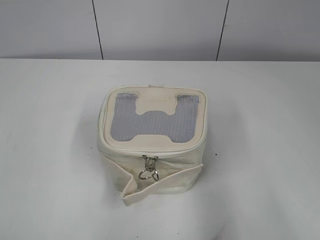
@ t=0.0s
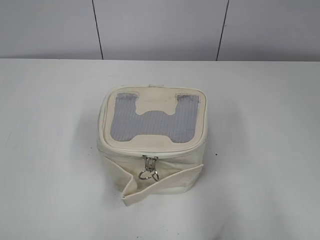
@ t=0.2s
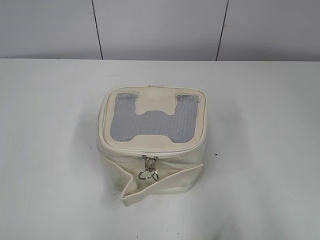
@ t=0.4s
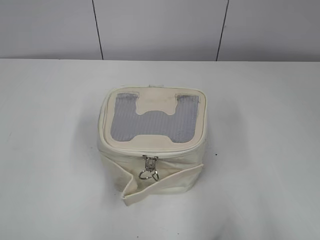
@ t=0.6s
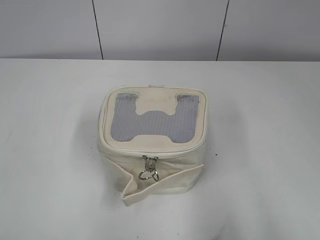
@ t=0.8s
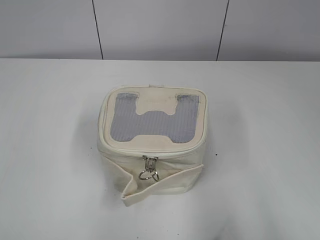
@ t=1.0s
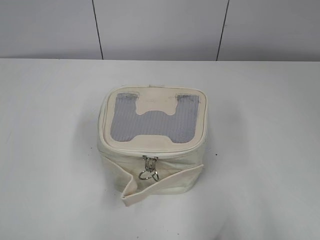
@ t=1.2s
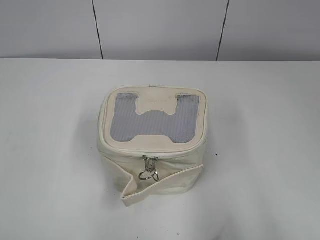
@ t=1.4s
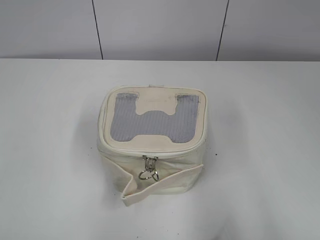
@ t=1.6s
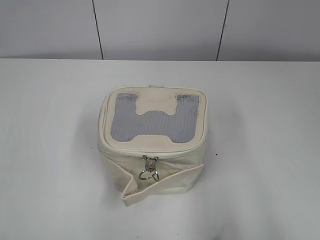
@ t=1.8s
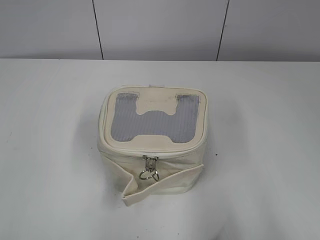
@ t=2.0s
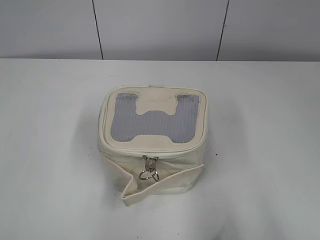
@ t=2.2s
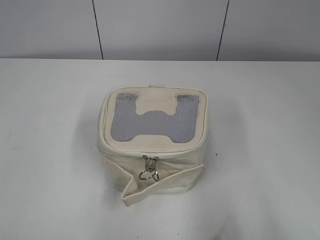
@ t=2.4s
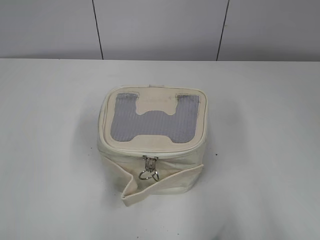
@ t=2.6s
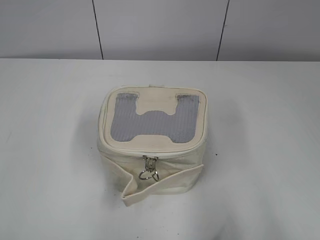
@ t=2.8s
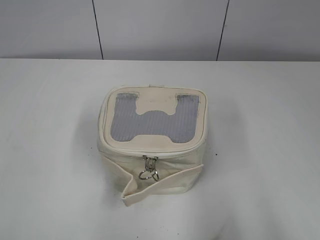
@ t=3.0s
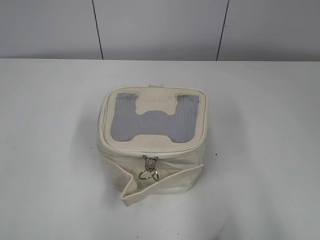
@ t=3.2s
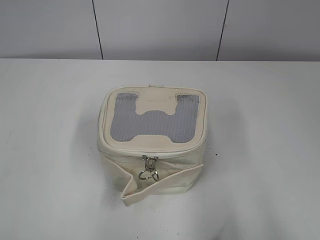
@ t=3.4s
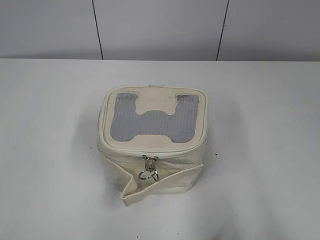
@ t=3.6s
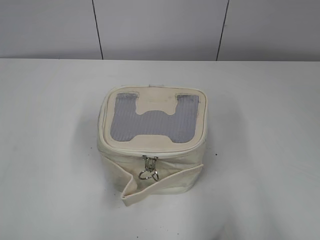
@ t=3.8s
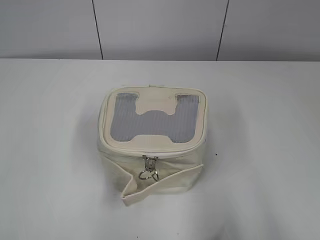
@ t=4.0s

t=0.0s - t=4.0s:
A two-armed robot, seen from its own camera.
t=1.4s - t=4.0s: Both grippers stay about where they are.

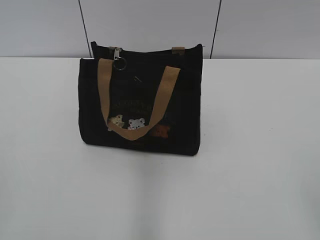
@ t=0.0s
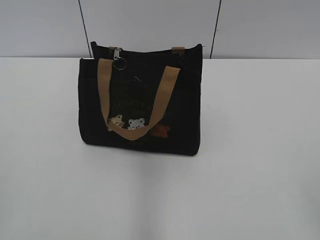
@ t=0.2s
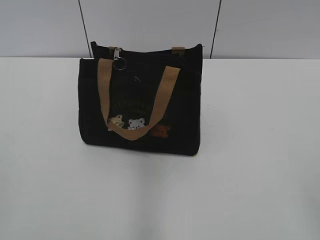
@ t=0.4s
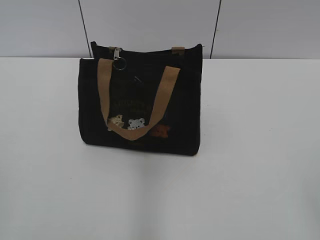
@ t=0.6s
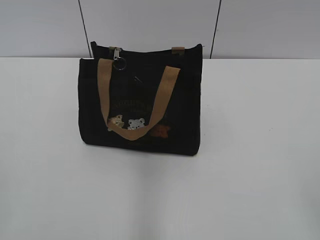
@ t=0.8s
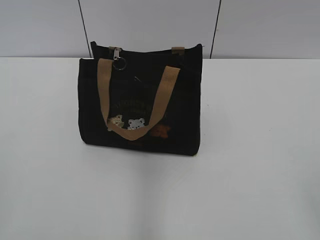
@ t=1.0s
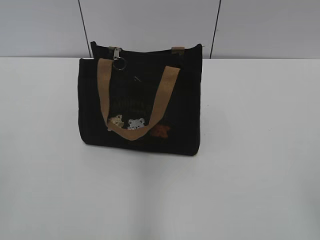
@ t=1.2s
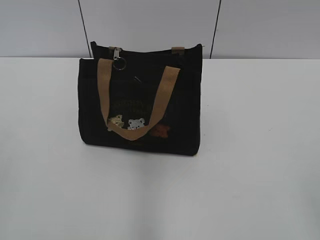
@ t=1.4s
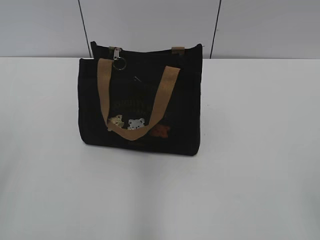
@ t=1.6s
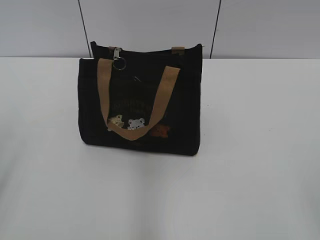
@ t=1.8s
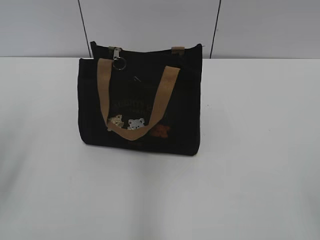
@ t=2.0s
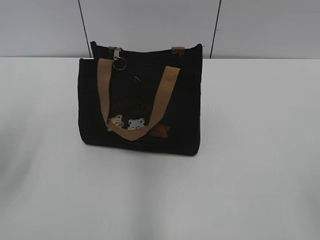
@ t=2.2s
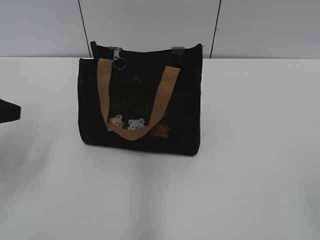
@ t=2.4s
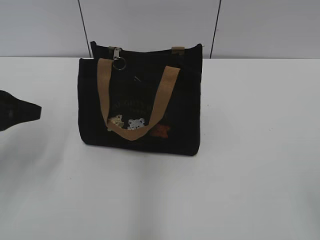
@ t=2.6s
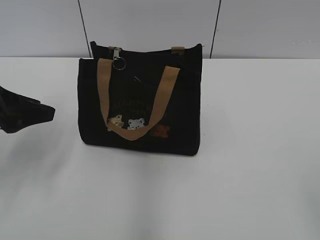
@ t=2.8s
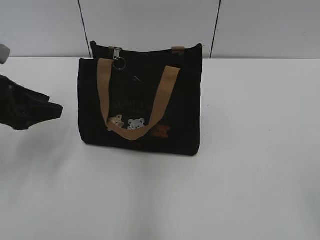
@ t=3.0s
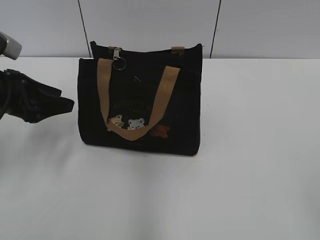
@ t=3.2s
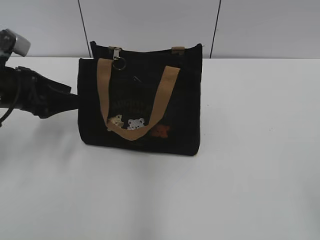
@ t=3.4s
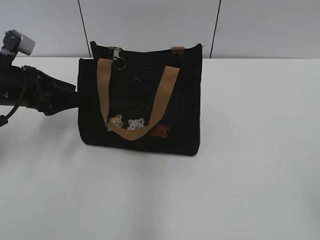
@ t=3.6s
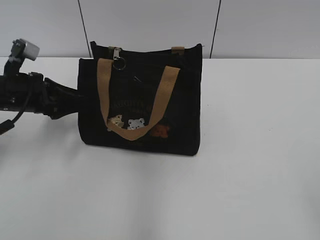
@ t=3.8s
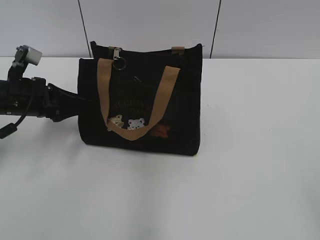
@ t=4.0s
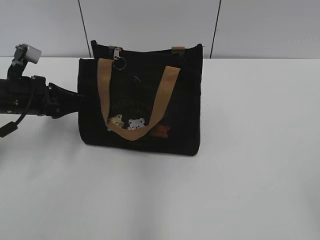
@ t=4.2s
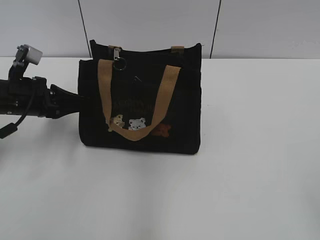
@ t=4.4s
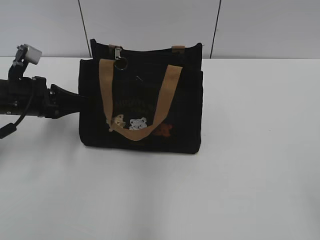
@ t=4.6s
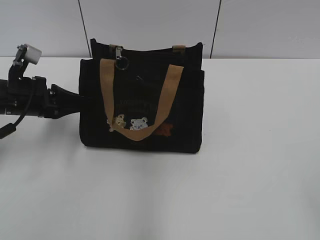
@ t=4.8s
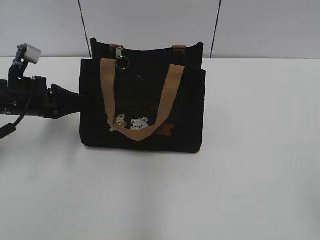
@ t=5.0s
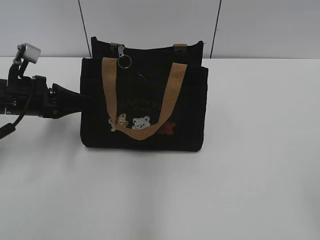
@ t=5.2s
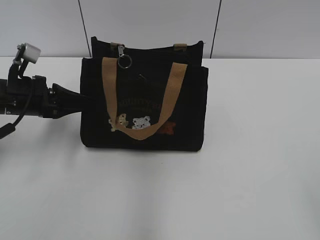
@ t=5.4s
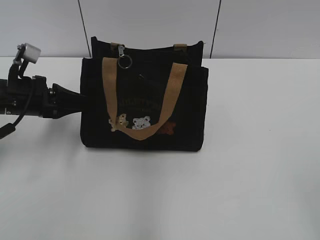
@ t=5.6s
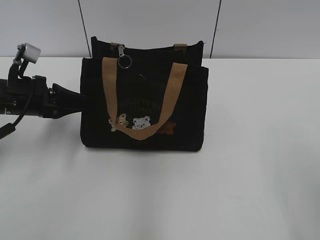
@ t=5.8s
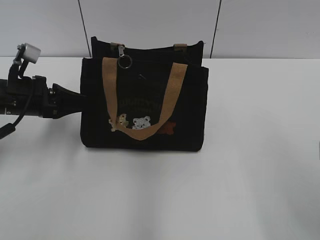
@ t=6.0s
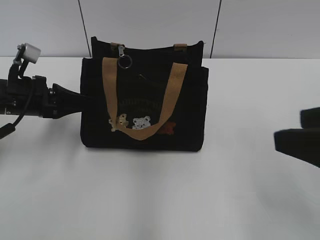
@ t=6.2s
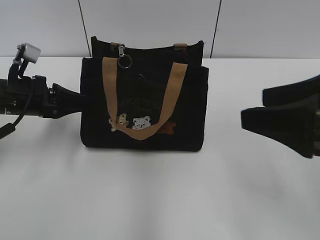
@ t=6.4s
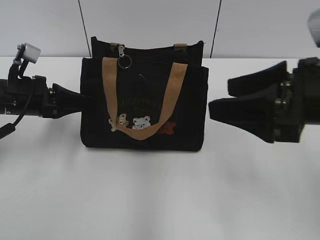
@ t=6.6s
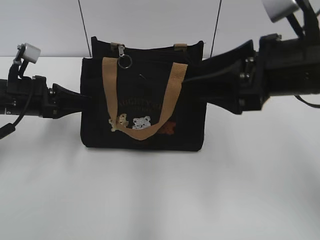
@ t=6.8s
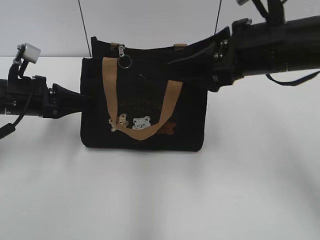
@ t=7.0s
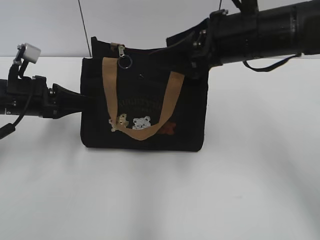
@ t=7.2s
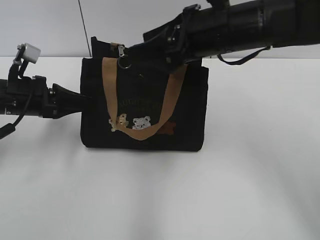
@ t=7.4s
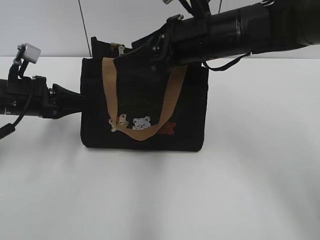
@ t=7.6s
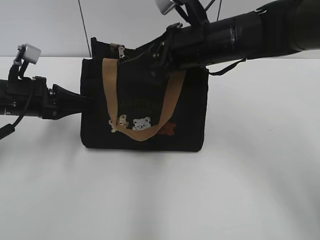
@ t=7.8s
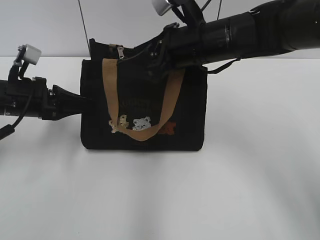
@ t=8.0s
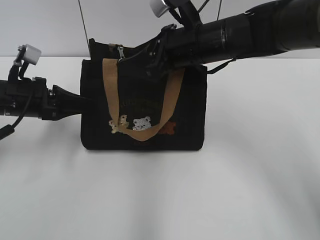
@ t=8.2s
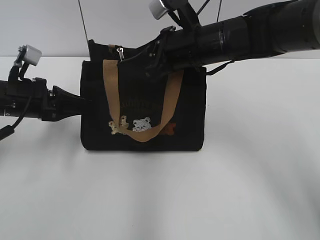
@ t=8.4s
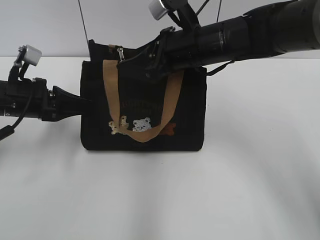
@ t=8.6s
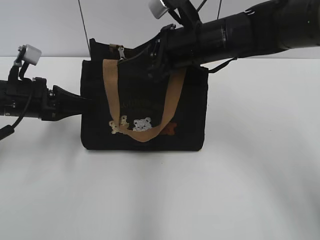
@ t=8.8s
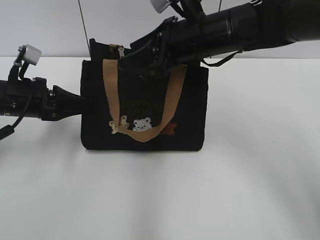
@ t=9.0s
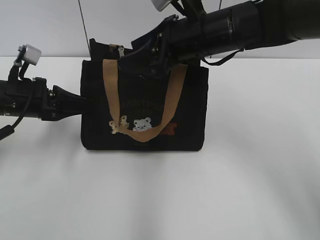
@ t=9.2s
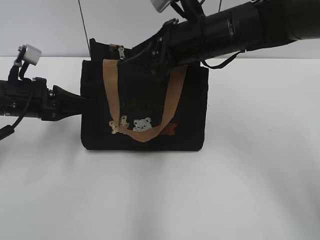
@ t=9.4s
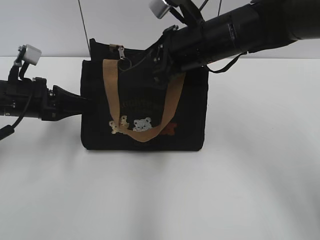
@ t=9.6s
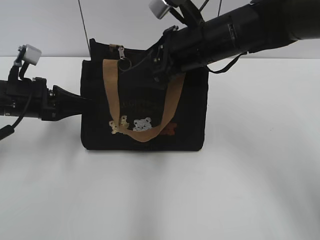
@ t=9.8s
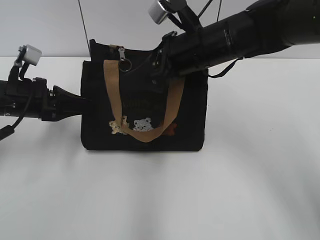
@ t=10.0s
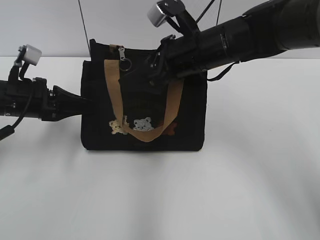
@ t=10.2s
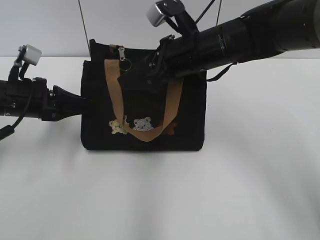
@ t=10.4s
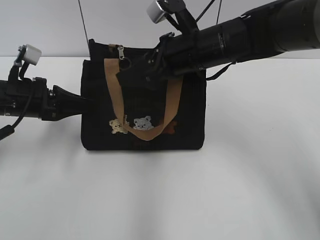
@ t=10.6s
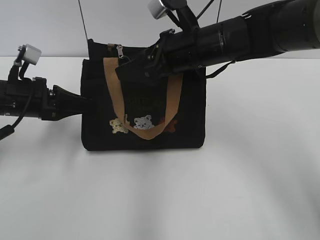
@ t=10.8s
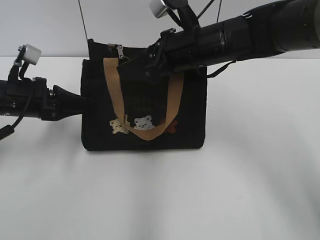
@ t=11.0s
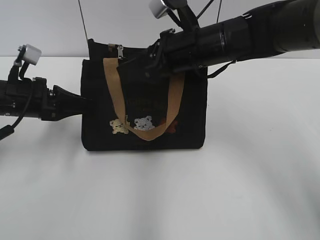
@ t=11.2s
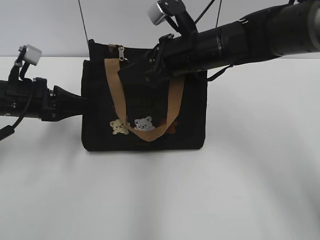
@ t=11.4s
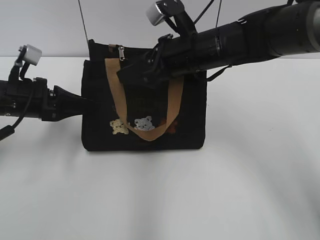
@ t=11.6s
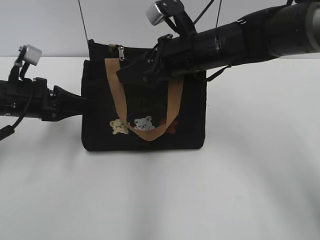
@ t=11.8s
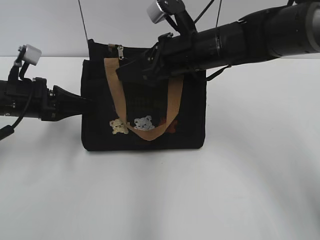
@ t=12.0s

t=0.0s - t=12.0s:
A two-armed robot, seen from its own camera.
t=1.6s - t=3.0s: The left gripper moves forward and downward, approximately 20 cm.
t=3.0s - t=4.4s: The left gripper moves forward and downward, roughly 10 cm, and closes.
t=4.4s - t=6.0s: The right gripper travels forward by approximately 10 cm.
t=6.0s - t=7.6s: The right gripper shifts some 30 cm forward and to the left.
t=7.6s - t=10.4s: The grippers move only a little.
t=10.4s - t=12.0s: Both grippers stay about where they are.

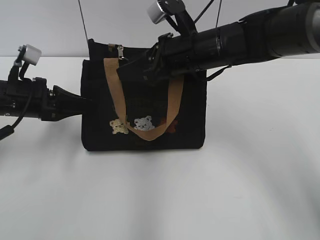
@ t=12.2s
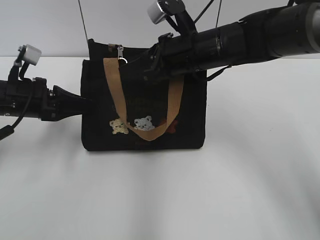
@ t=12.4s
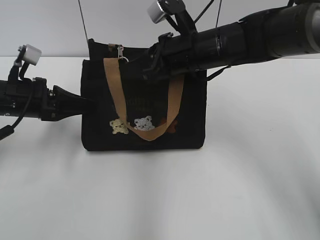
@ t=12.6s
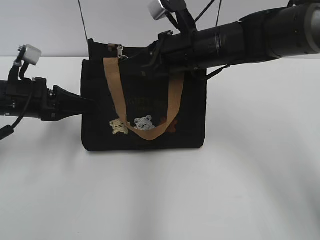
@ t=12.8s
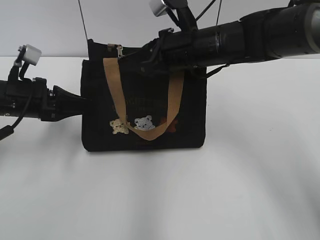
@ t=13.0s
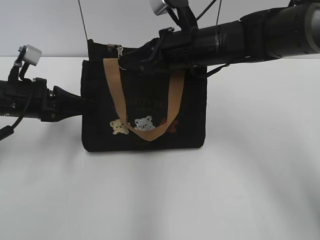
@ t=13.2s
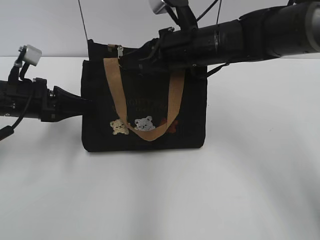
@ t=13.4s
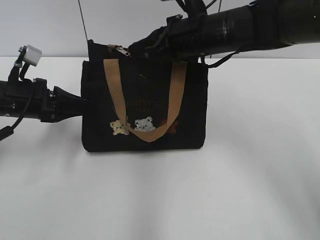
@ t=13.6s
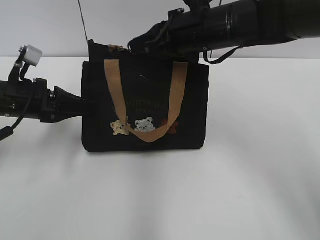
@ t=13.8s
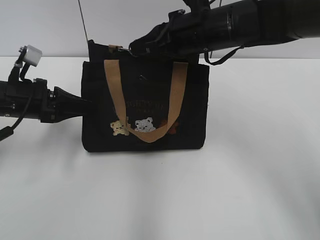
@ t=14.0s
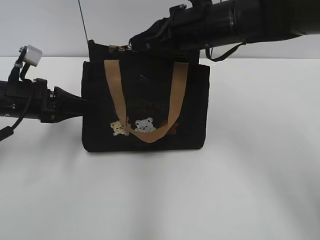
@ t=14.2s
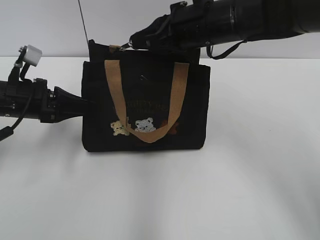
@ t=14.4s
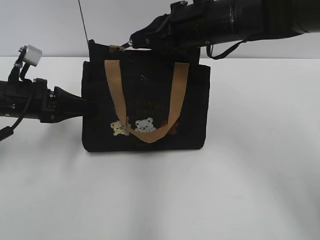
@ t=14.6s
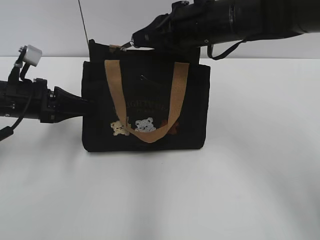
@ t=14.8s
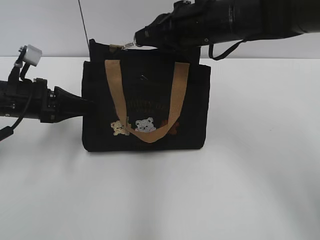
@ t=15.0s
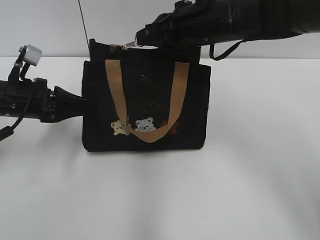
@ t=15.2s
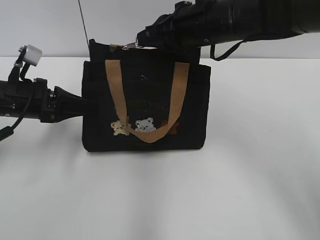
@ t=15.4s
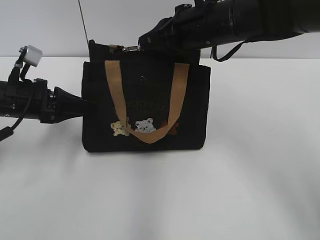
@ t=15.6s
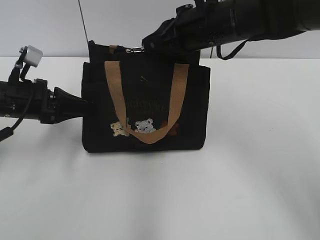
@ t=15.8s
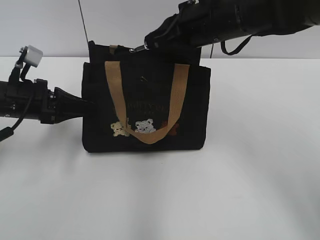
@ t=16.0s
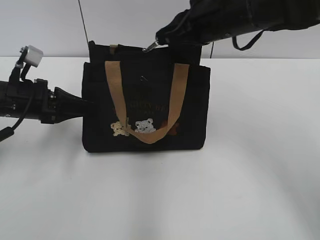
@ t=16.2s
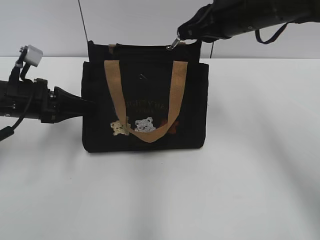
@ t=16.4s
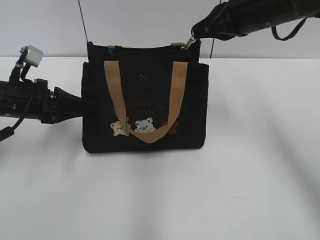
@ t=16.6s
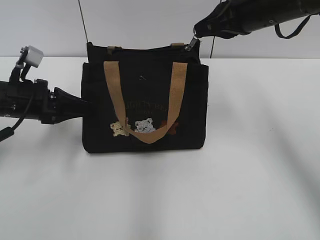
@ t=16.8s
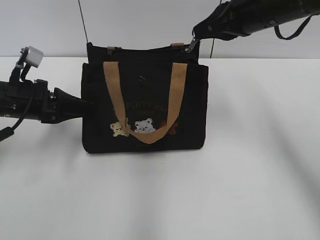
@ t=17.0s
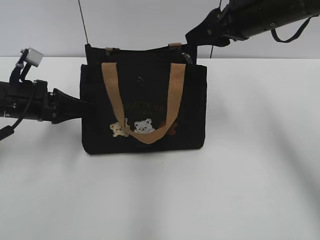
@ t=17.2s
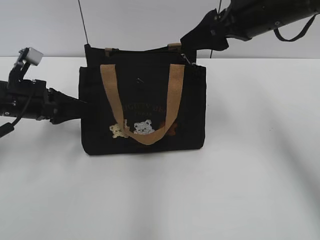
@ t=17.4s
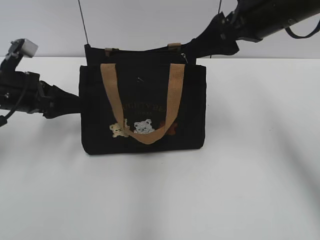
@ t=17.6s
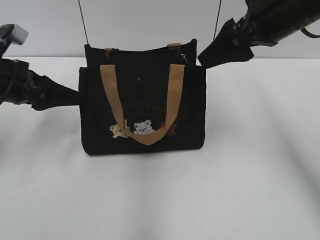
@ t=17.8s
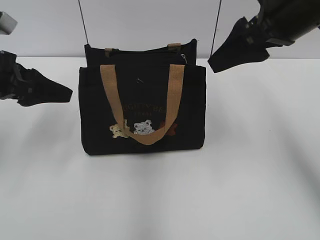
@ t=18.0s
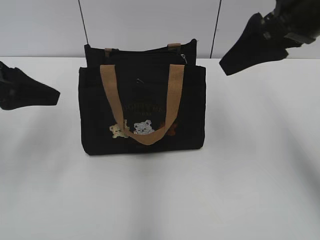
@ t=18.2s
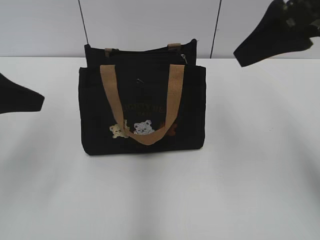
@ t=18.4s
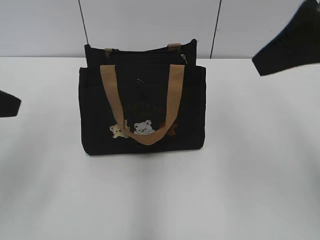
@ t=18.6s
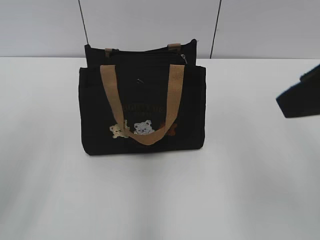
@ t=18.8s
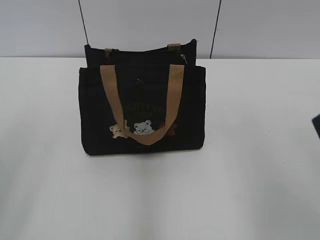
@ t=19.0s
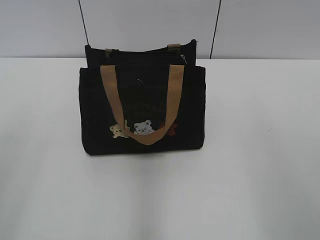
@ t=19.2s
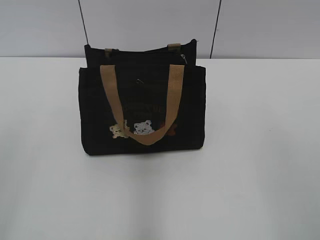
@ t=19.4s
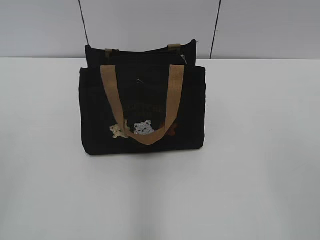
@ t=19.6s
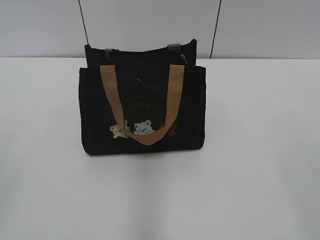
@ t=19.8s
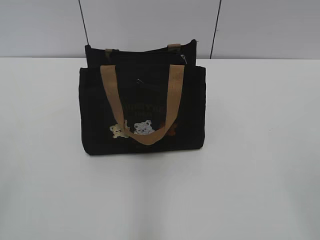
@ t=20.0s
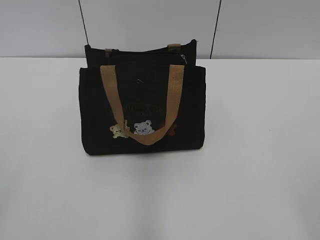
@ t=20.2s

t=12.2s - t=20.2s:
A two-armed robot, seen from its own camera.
Step, t=12.2s - t=17.4s: Zip up the bag with your right hand.
Step, t=17.6s - t=17.8s: Hold the bag with your left hand.
t=12.2s - t=13.8s: The right gripper closes.
t=13.8s - t=15.4s: There are only small adjustments of the grippers.
t=15.4s - t=17.0s: The right gripper moves to the right, some 10 cm.
t=17.0s - t=18.6s: The right gripper shifts about 15 cm backward and upward, and opens up; the left gripper is displaced upward and backward by approximately 20 cm, and opens.
t=18.6s - t=20.2s: The two grippers go about 20 cm backward.
